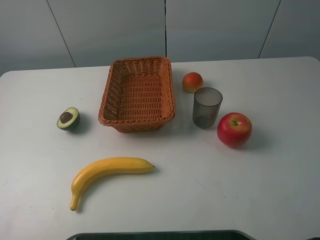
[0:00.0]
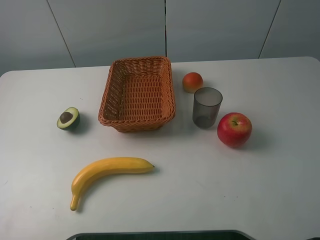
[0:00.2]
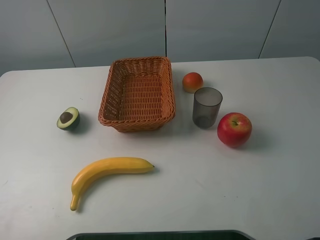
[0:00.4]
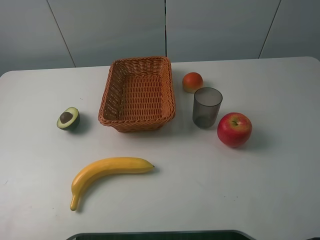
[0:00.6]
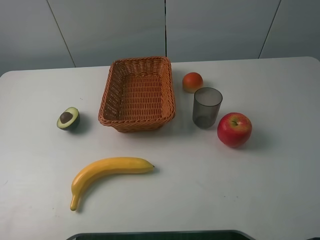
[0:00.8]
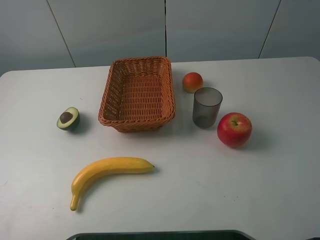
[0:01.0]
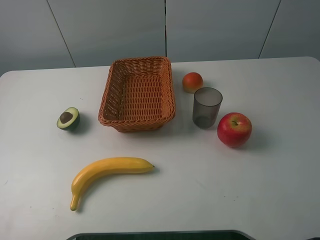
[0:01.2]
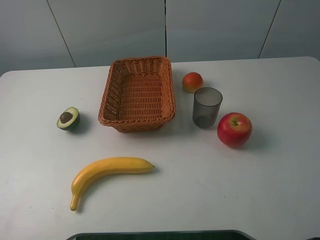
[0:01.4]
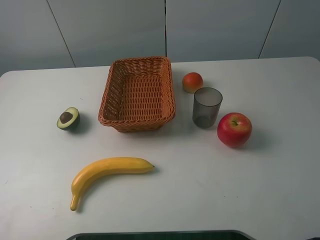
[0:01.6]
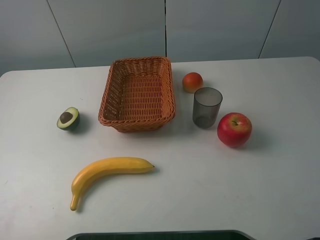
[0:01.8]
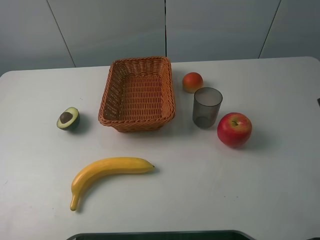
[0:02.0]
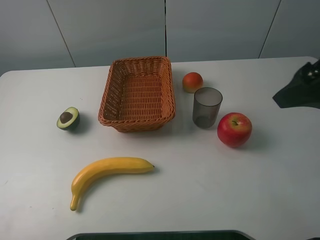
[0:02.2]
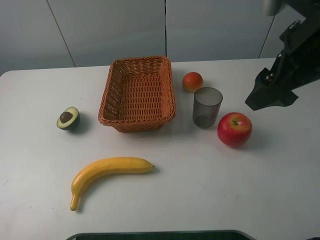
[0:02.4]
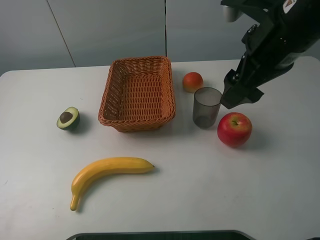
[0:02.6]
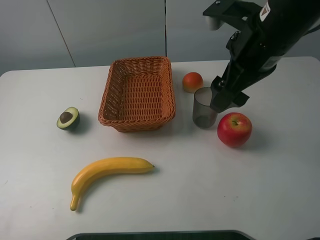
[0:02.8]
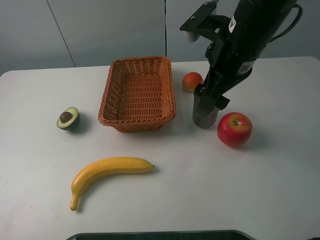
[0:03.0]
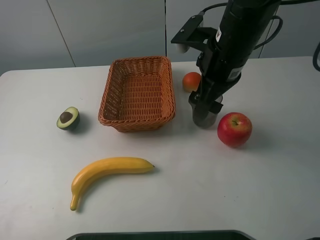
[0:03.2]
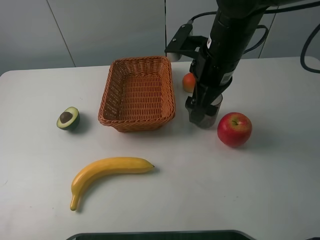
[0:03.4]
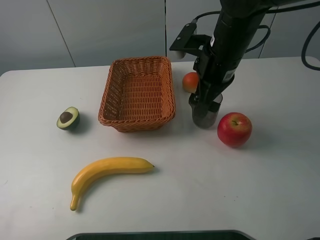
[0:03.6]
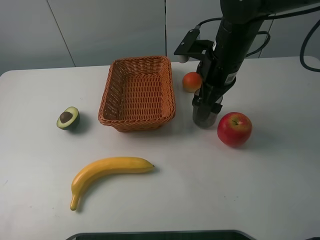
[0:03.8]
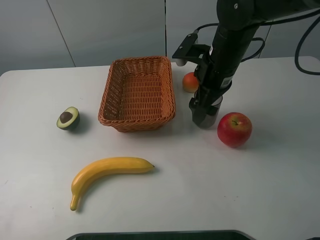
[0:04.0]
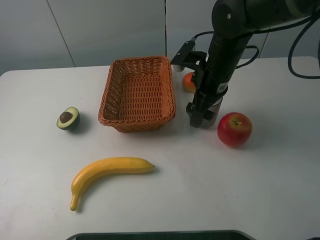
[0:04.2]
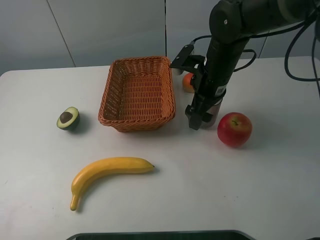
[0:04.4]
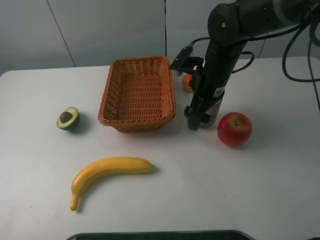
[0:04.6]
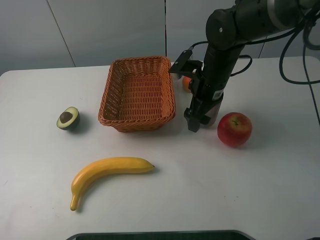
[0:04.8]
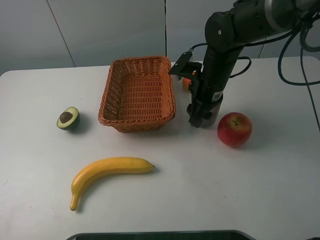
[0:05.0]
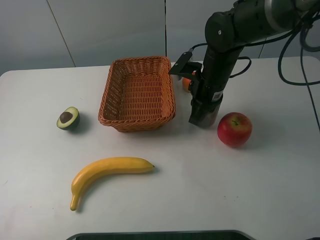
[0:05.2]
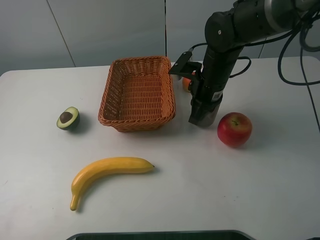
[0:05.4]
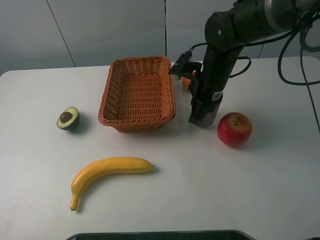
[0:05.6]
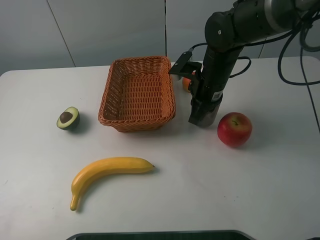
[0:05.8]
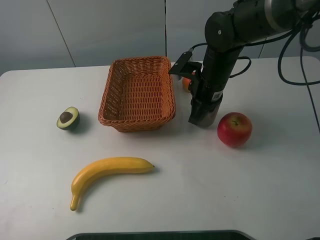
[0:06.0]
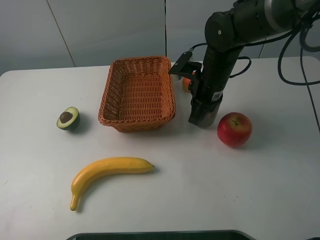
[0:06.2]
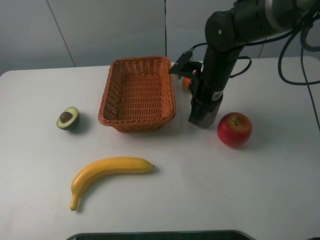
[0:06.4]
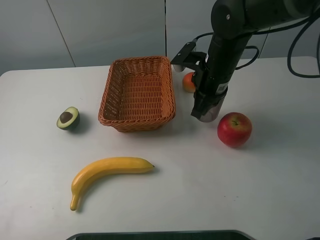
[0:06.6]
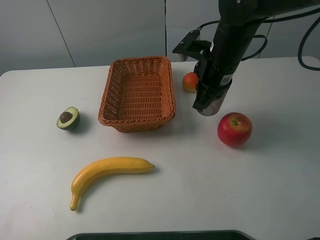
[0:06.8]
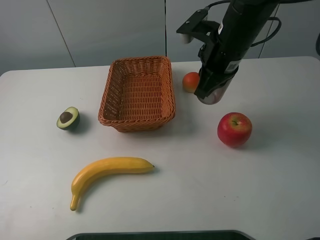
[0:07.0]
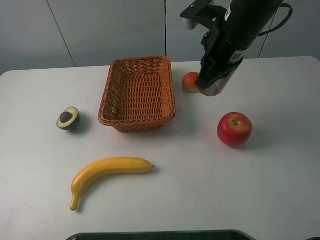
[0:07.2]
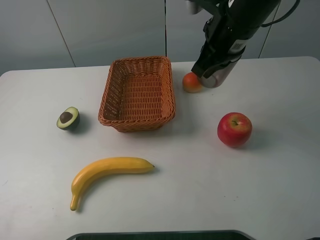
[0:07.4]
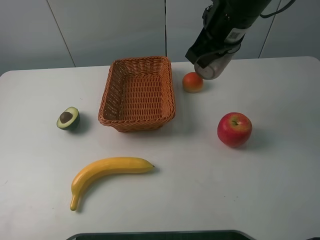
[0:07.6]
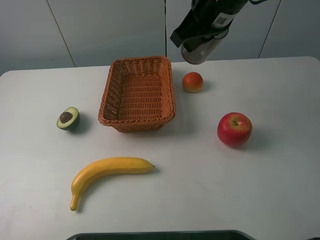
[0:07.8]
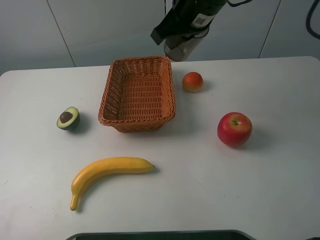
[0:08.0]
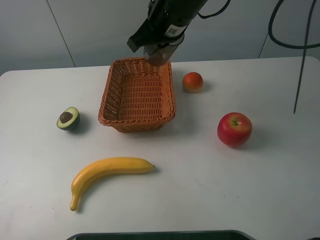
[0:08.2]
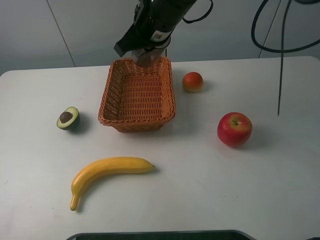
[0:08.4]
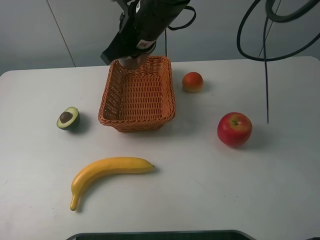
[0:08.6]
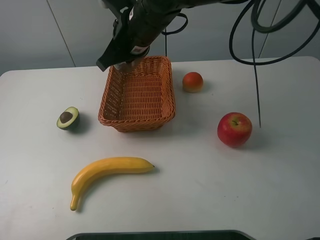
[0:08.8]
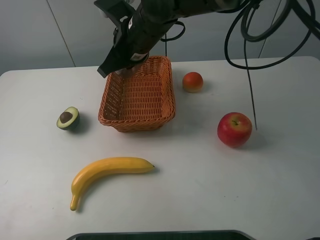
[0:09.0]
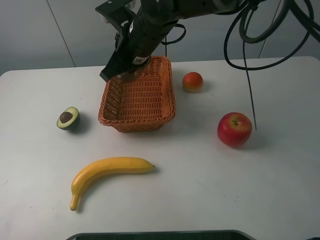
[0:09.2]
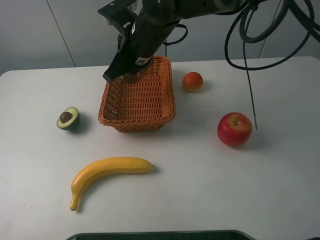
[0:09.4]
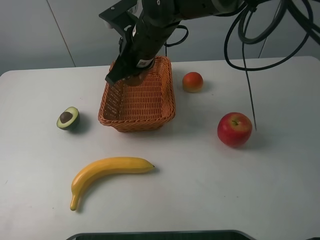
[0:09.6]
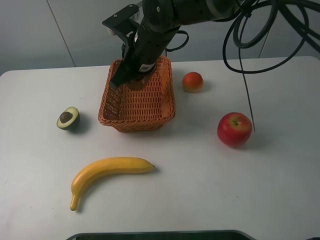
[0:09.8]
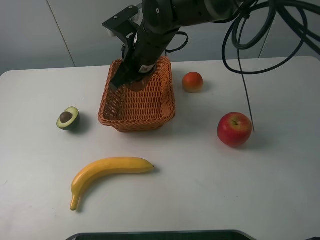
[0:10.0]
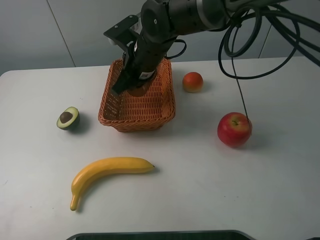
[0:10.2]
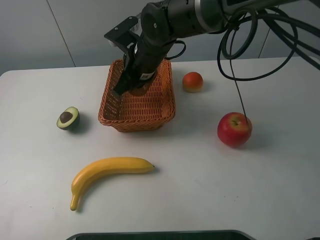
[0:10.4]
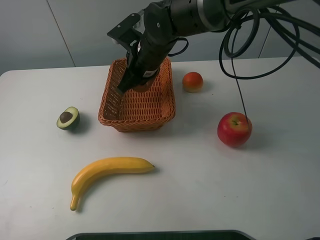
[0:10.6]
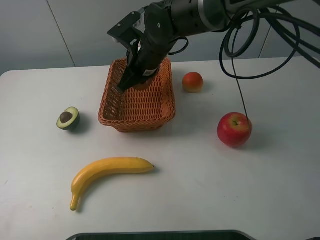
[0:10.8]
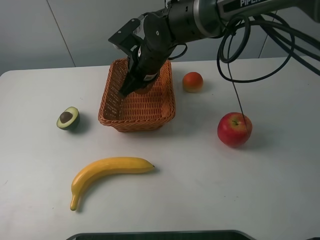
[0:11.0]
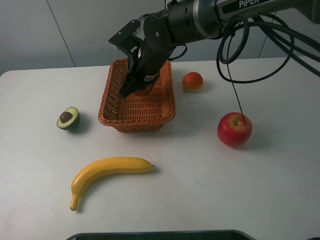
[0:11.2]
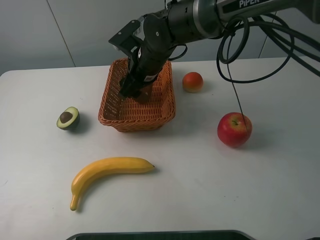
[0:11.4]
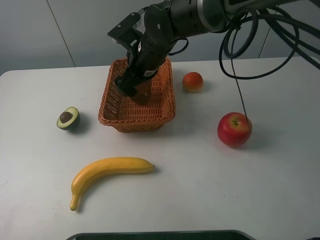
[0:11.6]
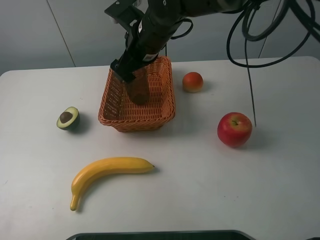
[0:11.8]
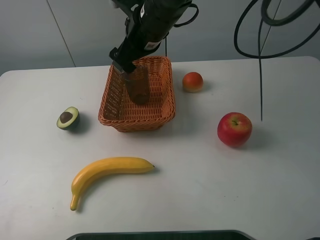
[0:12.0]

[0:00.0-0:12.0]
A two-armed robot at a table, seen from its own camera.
0:01.6 to 0:03.0: The right gripper travels forward and to the left by roughly 30 cm.
0:03.0 to 0:04.4: The right gripper shifts roughly 10 cm downward and forward.
0:04.4 to 0:06.0: The right gripper closes up.
0:06.0 to 0:07.6: The right gripper goes some 15 cm upward.
0:07.6 to 0:09.0: The right gripper is displaced to the left and downward by roughly 15 cm.
0:09.0 to 0:10.4: The grippers make only small movements.
0:10.4 to 0:12.0: The right gripper moves upward, roughly 5 cm, and opens up.

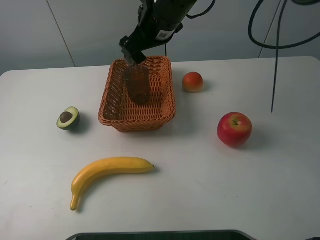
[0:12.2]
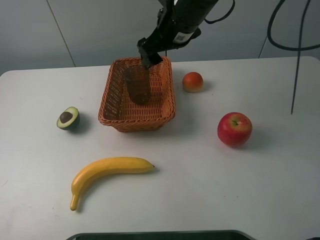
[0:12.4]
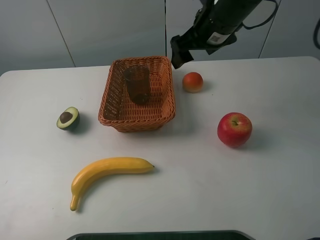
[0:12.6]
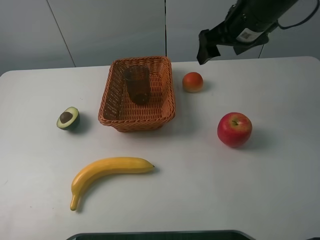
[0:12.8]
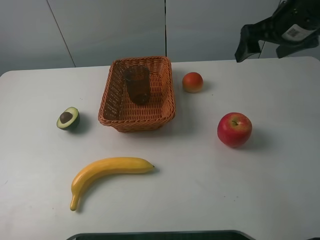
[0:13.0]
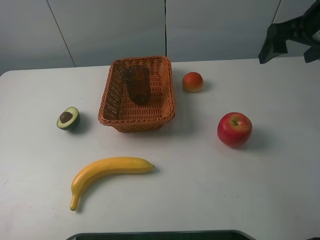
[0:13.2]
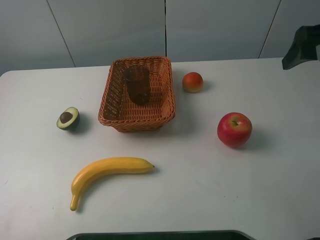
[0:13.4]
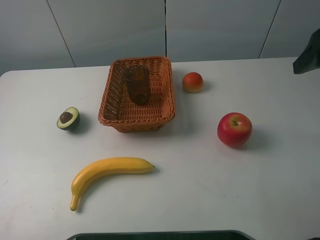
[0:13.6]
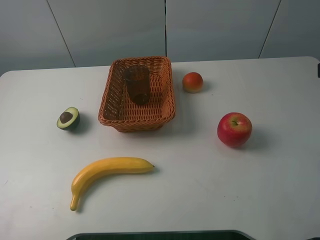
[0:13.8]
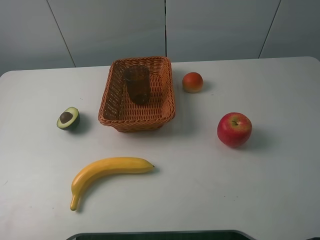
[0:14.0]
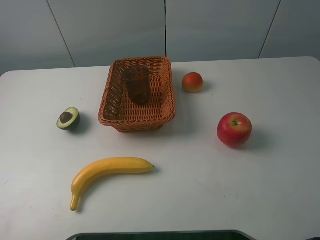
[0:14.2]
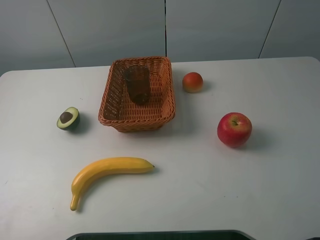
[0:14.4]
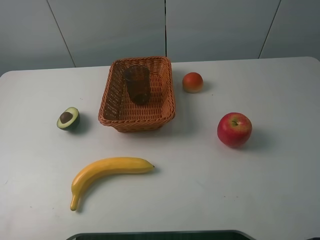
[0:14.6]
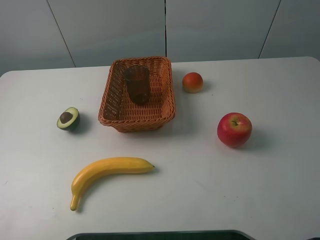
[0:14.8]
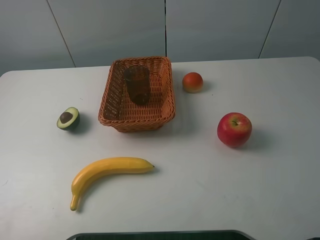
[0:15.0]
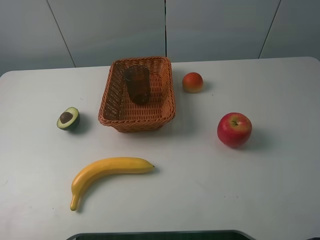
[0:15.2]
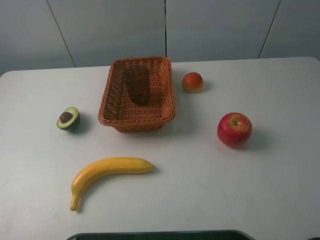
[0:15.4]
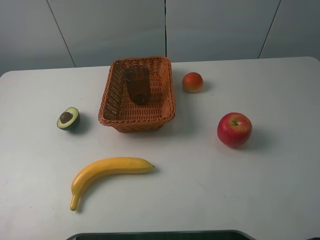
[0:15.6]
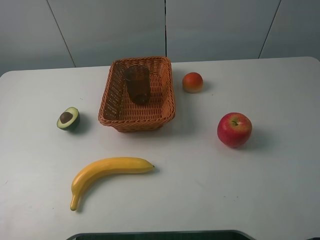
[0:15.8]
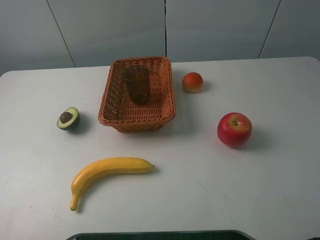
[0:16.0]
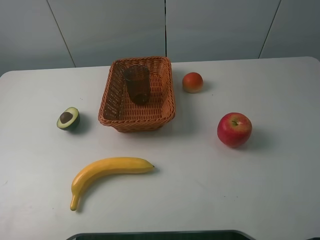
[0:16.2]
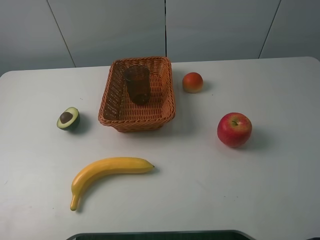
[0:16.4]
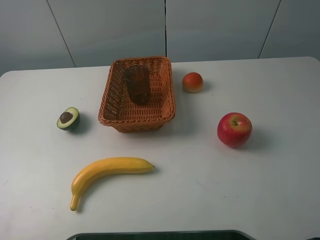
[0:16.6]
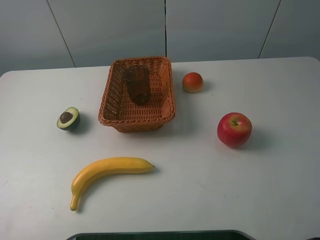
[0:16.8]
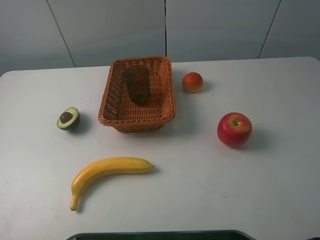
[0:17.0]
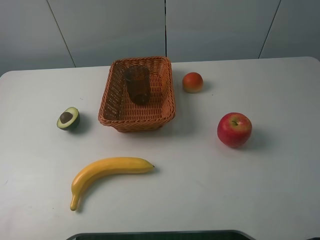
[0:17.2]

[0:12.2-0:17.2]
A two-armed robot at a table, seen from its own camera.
0:12.2 to 0:13.8: The right gripper travels to the right and backward by approximately 35 cm.
